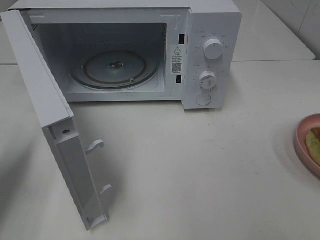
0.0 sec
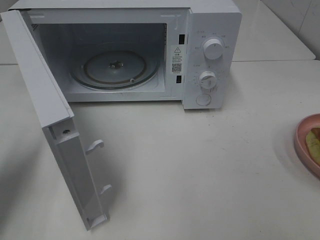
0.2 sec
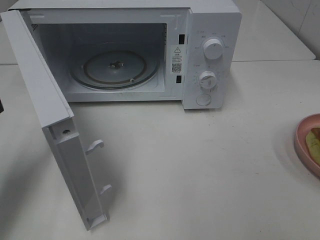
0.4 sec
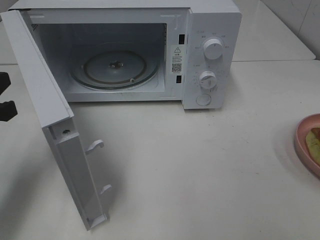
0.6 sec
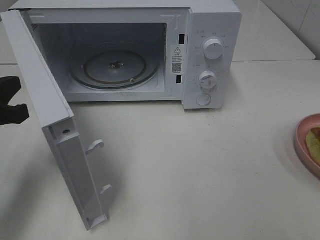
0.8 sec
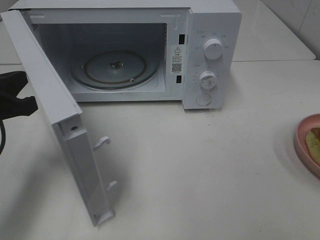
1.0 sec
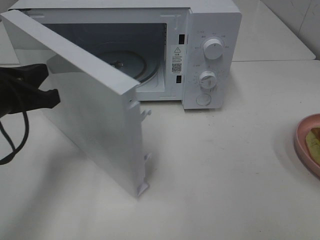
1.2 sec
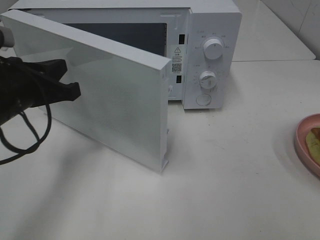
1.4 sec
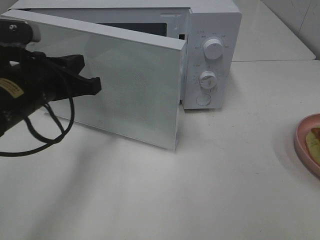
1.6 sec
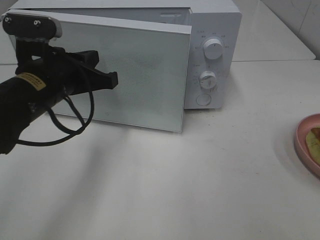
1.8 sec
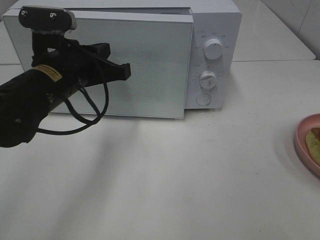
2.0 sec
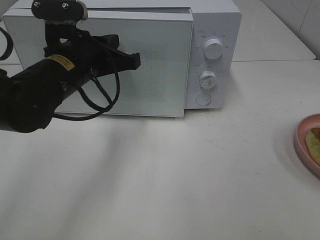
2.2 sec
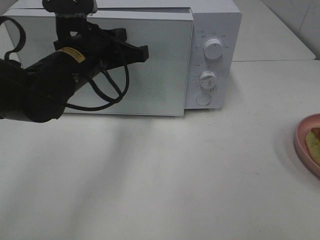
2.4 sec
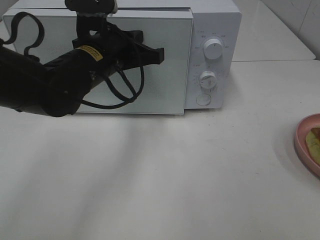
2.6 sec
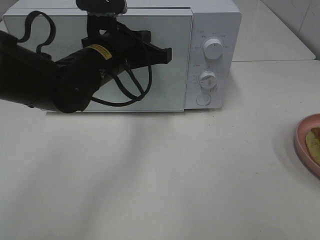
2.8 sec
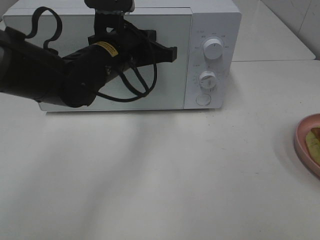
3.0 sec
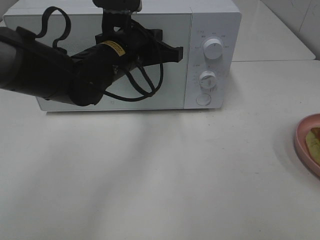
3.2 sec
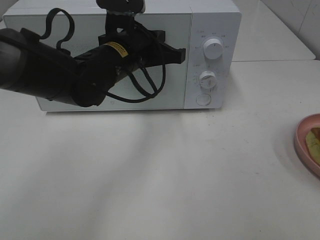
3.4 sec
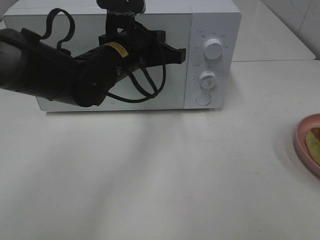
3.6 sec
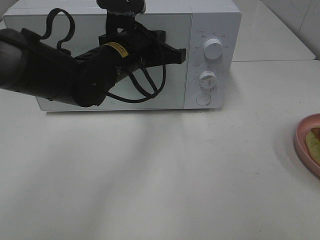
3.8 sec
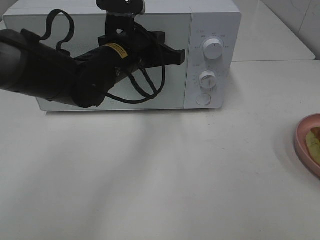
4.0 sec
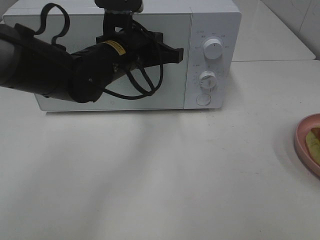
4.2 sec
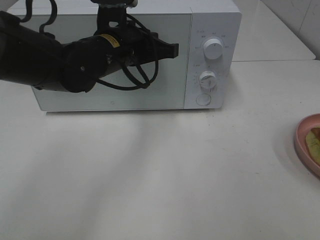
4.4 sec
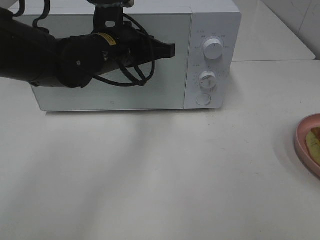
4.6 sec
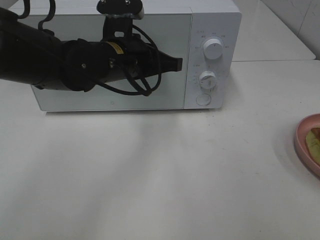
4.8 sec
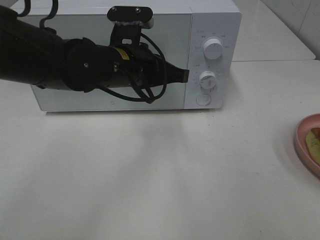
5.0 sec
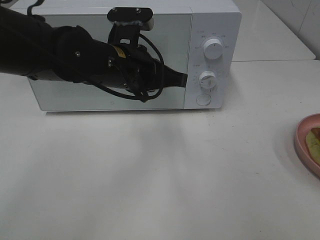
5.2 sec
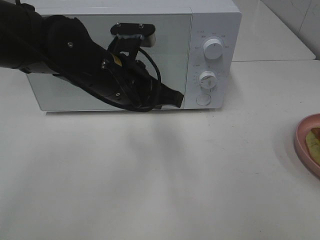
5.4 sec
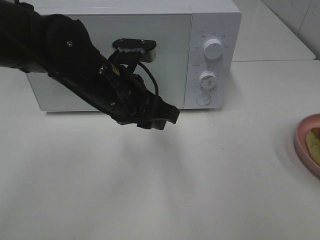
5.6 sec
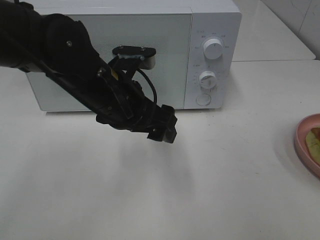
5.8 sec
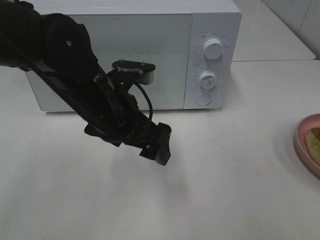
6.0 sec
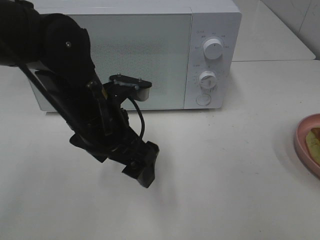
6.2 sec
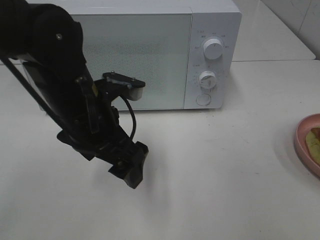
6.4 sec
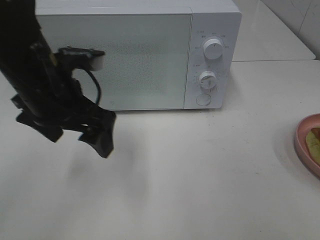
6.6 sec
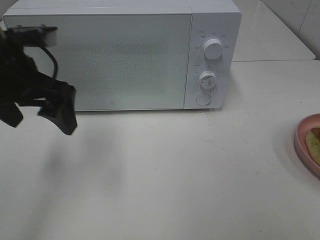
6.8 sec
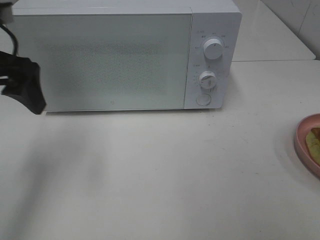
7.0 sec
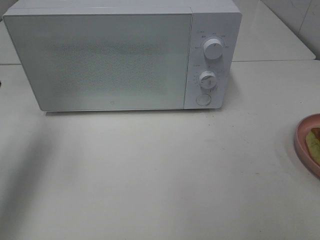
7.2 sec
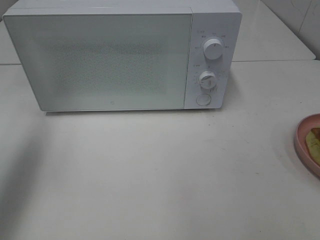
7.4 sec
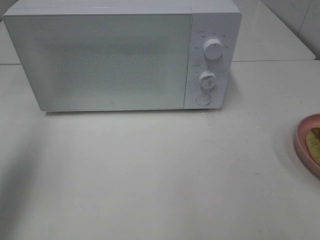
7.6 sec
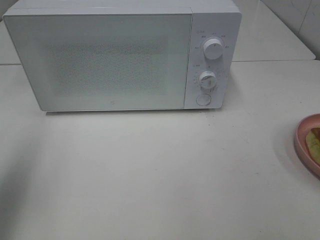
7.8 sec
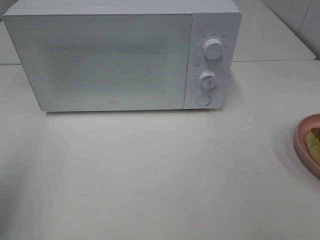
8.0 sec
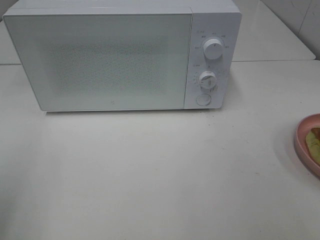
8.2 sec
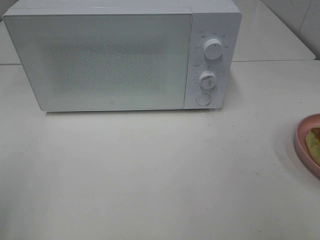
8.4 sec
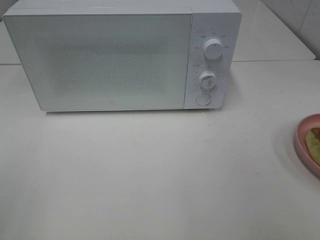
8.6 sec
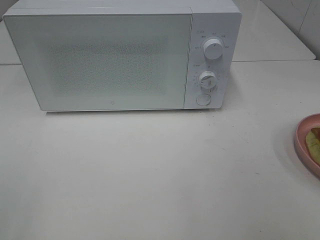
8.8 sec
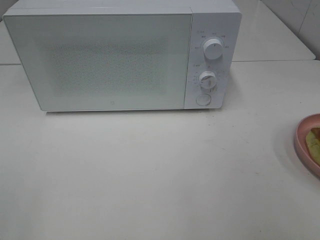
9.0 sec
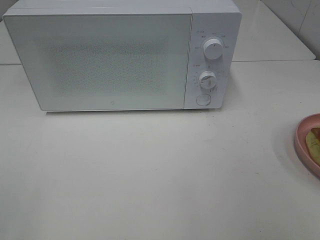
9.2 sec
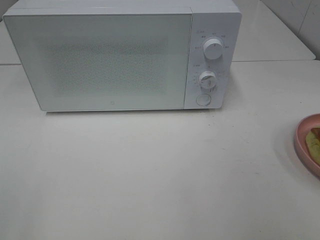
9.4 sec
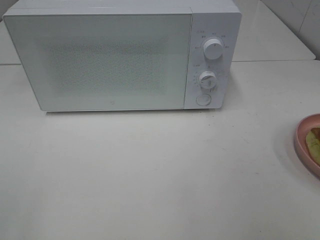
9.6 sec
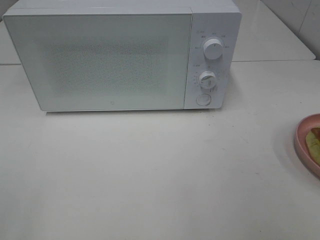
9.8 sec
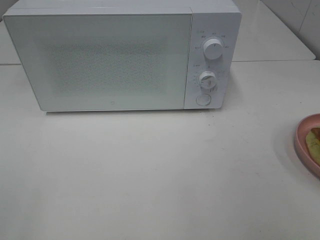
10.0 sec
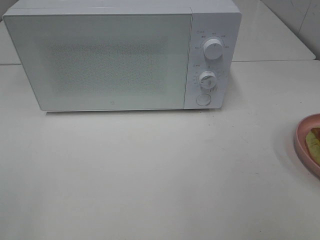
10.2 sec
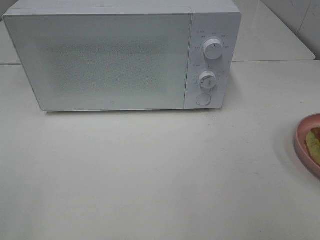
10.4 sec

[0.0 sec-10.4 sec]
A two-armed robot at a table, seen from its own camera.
Task of the whole recording: Heat Sandwich.
Step, 0.0 sec to 4.8 sec: Left hand: close the microwave door.
0.0 sec to 1.4 sec: The left gripper heads to the right, covering roughly 10 cm.
1.4 sec to 3.0 sec: The left gripper travels to the right and forward by roughly 15 cm.
3.0 sec to 4.4 sec: The grippers make only small movements.
4.4 sec to 6.0 sec: The left gripper moves backward, about 10 cm, and opens.
6.0 sec to 7.4 sec: The left gripper shifts roughly 30 cm to the left and upward.
7.4 sec to 9.0 sec: The left gripper travels backward by roughly 25 cm.
9.0 sec to 10.4 sec: Neither gripper changes place.
